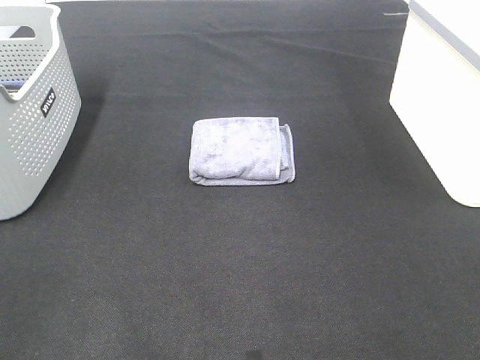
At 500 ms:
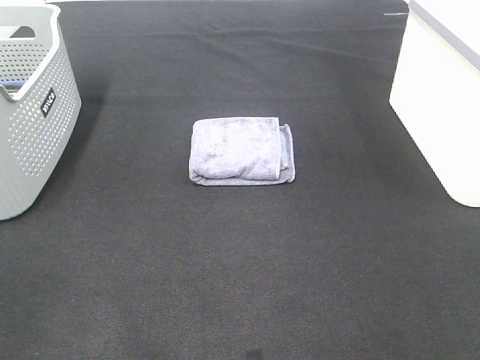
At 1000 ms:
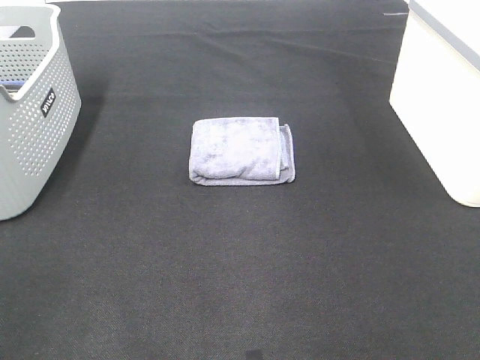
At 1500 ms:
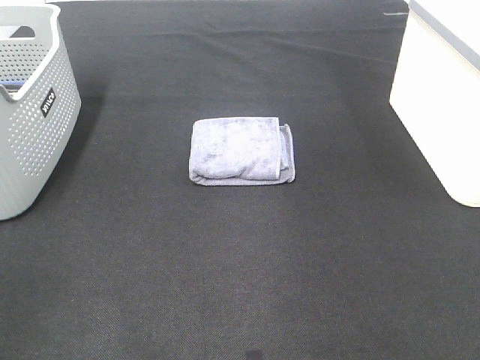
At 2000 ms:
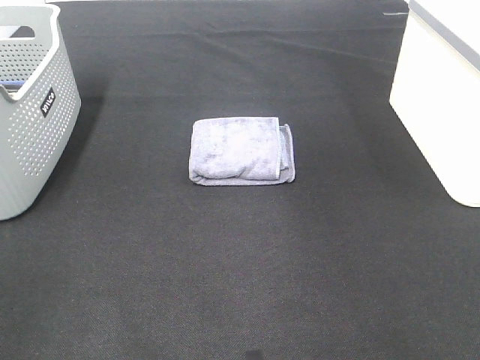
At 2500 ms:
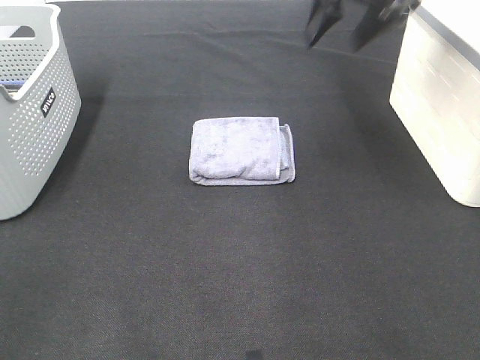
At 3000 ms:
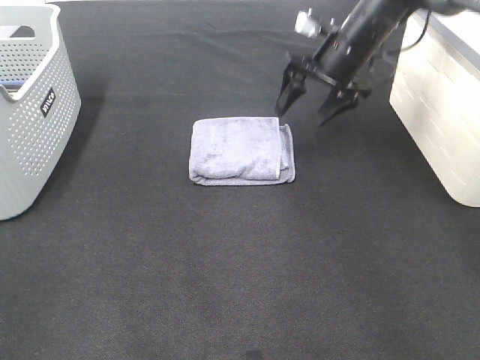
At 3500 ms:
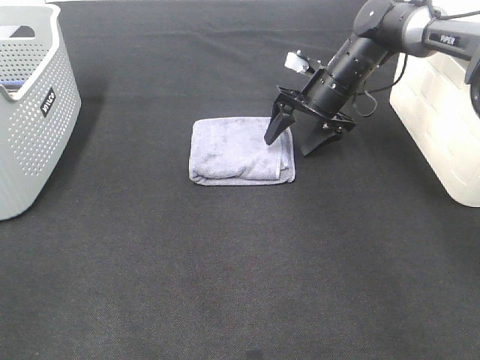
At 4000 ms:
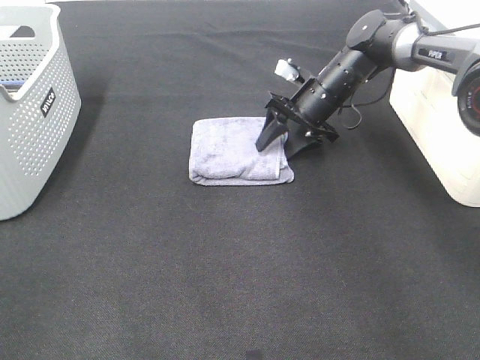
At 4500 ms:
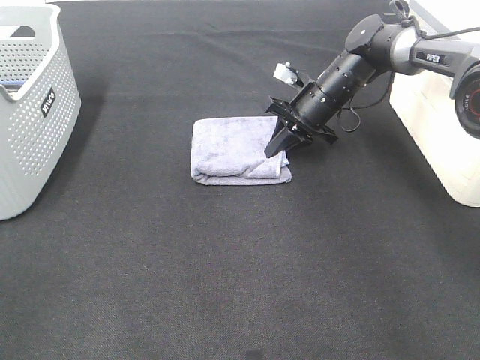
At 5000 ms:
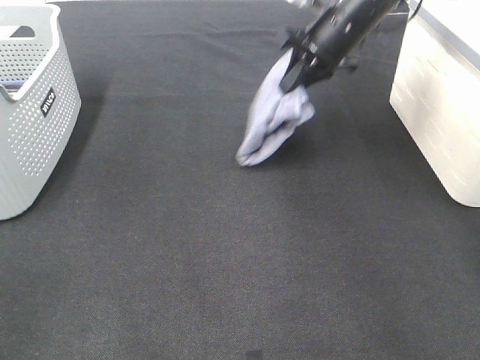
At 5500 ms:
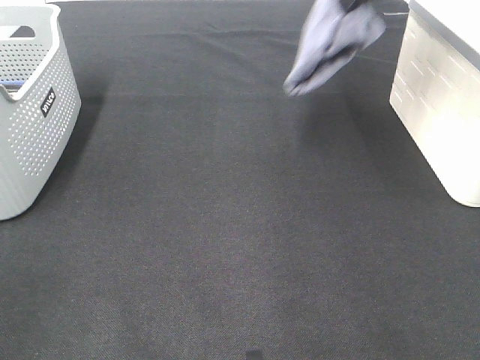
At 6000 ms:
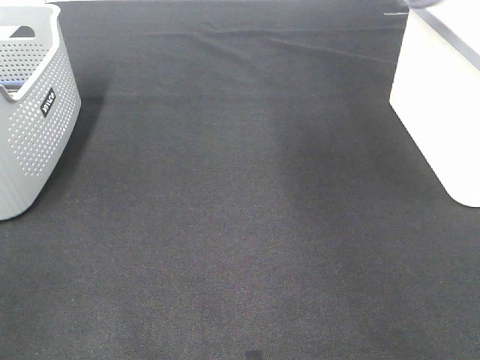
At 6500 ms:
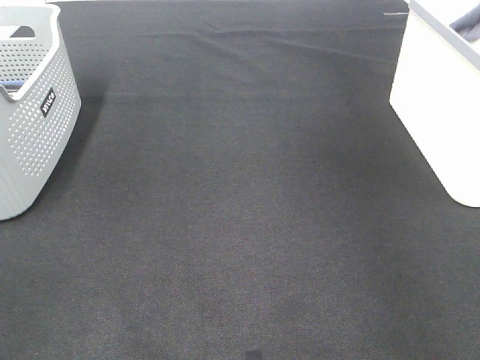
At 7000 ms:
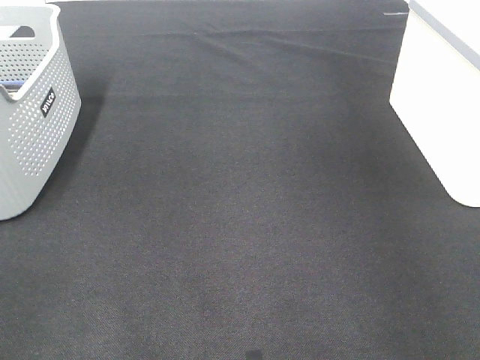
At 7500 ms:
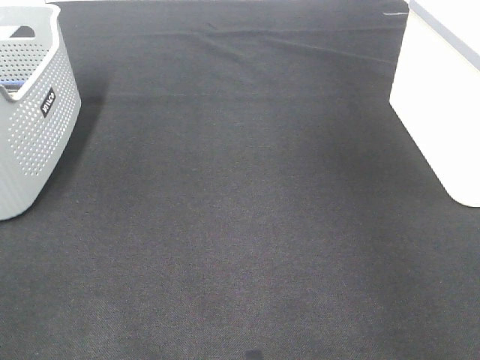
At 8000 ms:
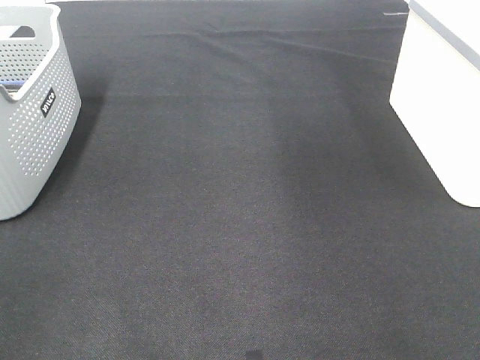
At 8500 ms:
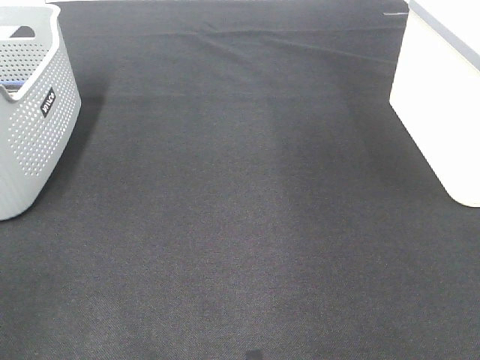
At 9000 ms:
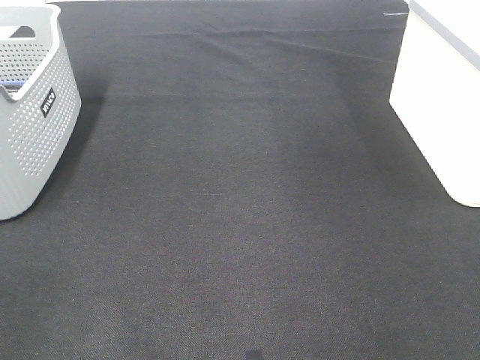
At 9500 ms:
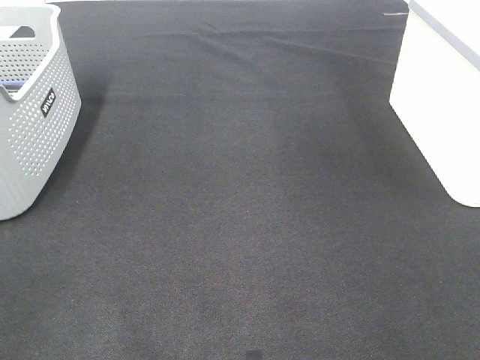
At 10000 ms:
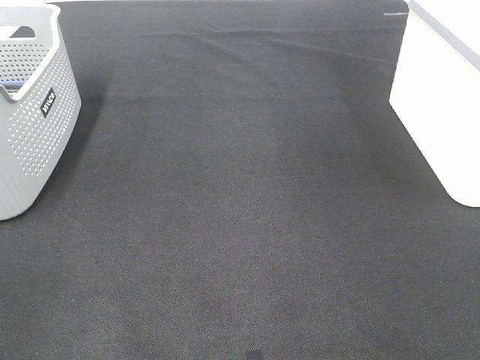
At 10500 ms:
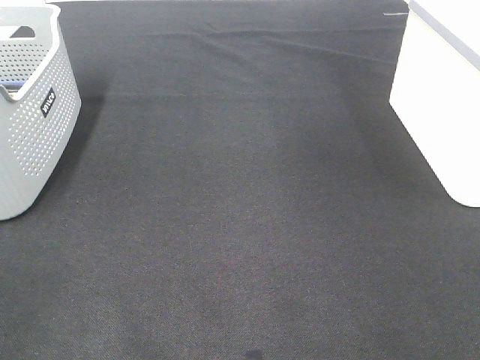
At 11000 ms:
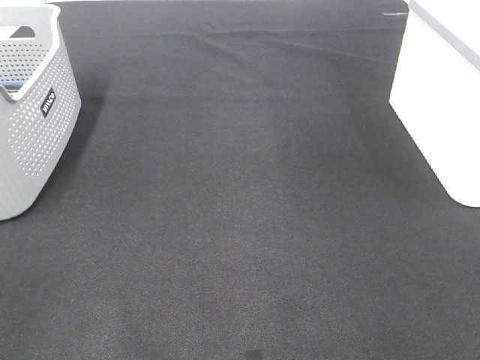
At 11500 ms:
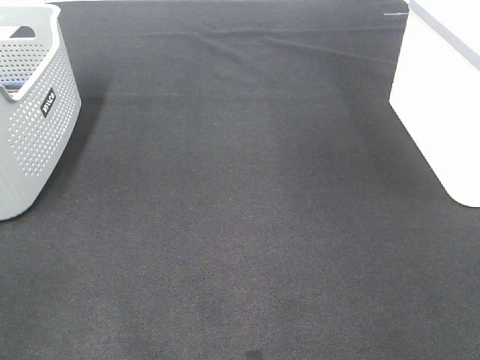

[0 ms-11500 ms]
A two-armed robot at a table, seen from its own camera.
Step, 0 ms to 4000 ms: Right hand: grab the folded grey towel.
Step, 4500 ms to 7000 ms: Right hand: place the grey towel in right basket.
2000 ms to 4000 ms: The right gripper goes some 30 cm downward and to the left.
4000 ms to 6000 ms: The right gripper goes roughly 40 cm upward and to the right, and closes.

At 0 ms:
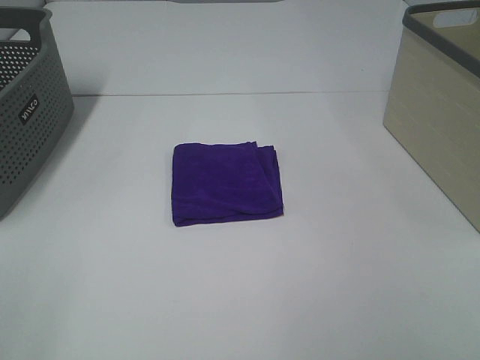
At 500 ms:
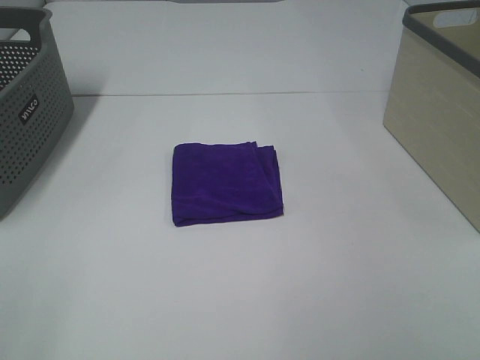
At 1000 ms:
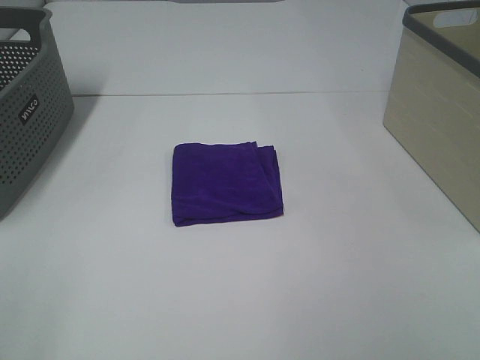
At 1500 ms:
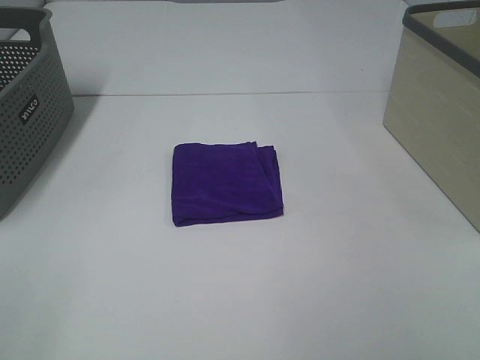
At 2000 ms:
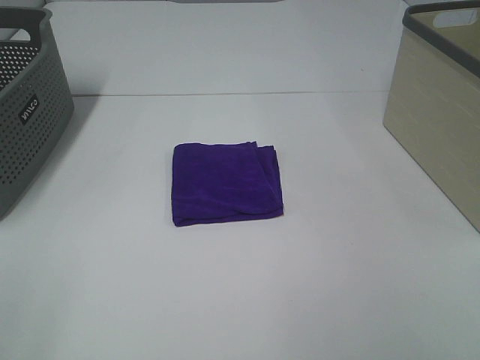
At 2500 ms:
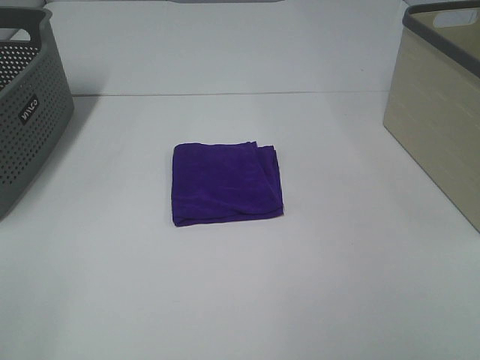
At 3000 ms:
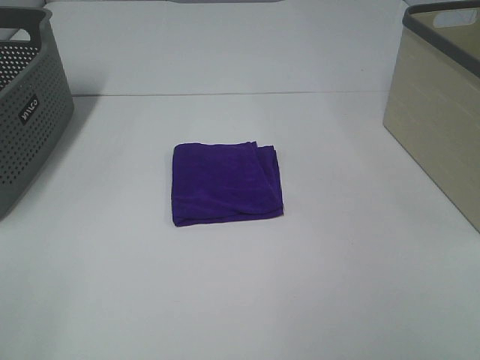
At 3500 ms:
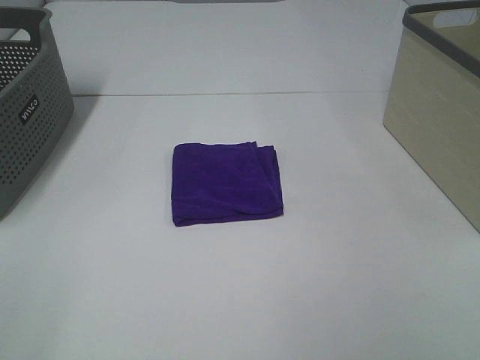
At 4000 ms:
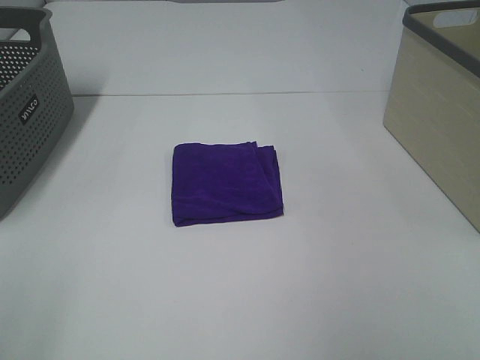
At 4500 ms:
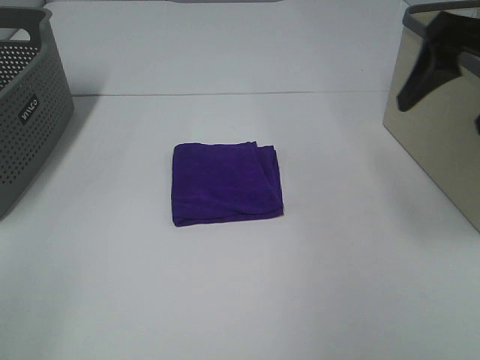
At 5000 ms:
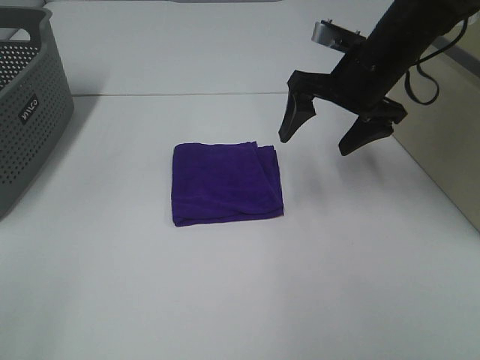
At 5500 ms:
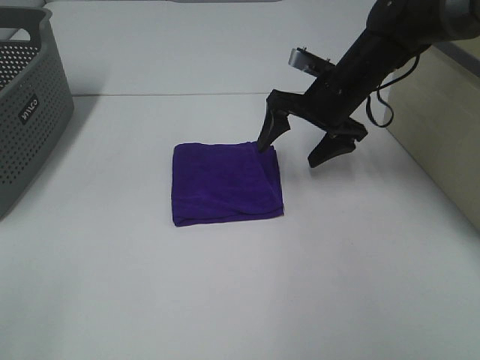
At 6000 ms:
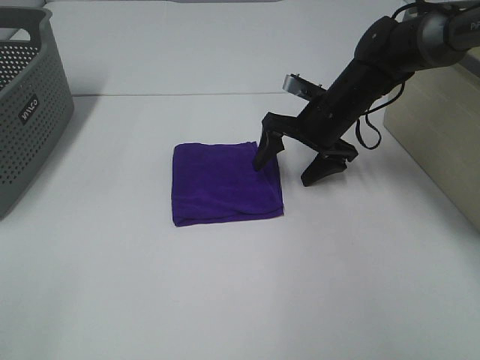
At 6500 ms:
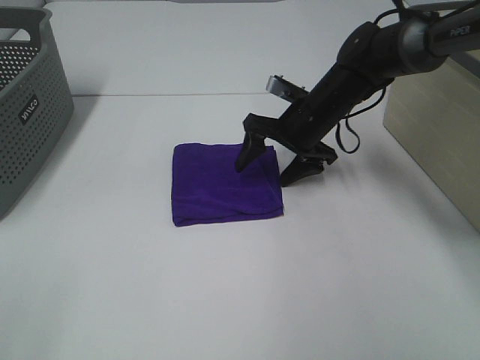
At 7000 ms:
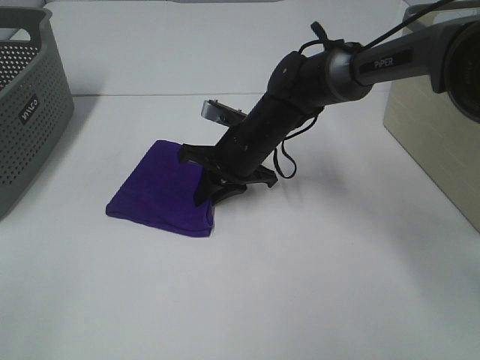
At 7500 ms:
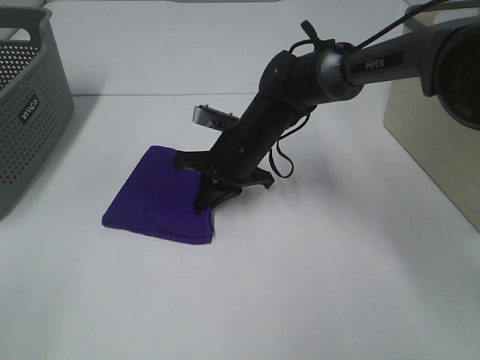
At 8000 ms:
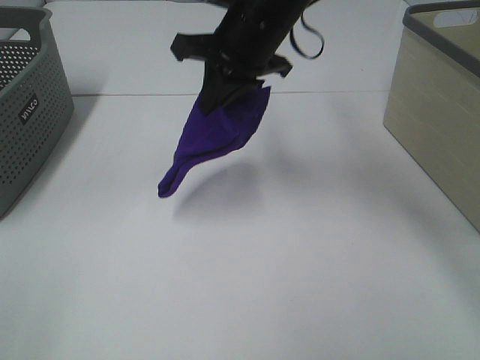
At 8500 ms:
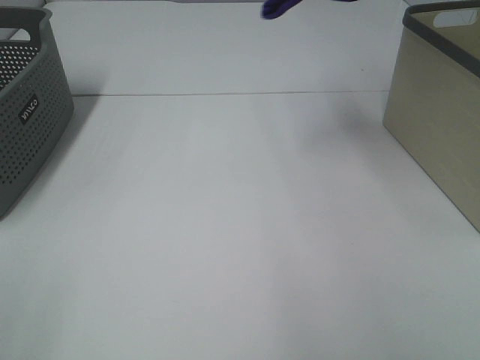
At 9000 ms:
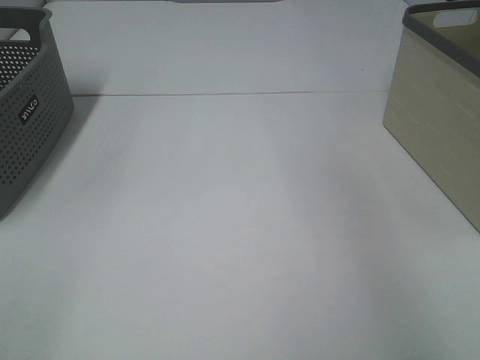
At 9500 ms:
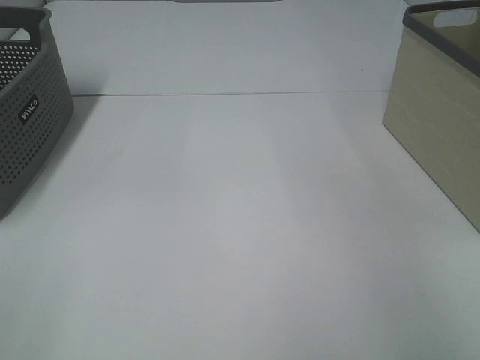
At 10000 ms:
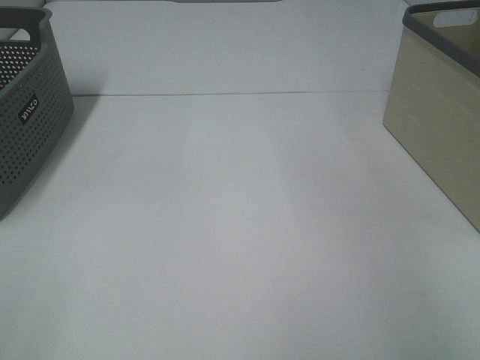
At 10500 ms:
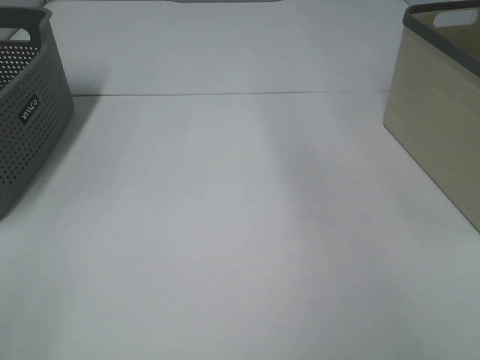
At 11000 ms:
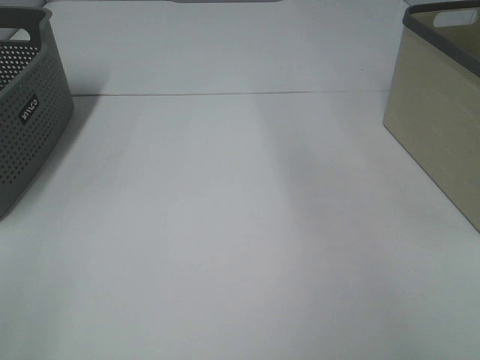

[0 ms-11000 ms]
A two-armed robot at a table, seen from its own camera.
Step, 0 ms to 7000 ms: Right hand: grab the folded purple towel.
Step, 7500 ms to 9500 ms: Right hand: place the purple towel in right basket.
0 ms to 2000 ms: Both grippers stay about where they are.
3500 ms to 5500 ms: The right gripper goes some 40 cm forward.
5500 ms to 7500 ms: The right gripper goes some 15 cm to the left and downward, and closes.
7500 ms to 9000 ms: The right gripper travels to the right and upward by roughly 50 cm.

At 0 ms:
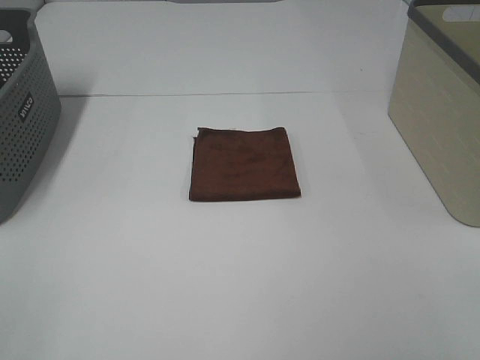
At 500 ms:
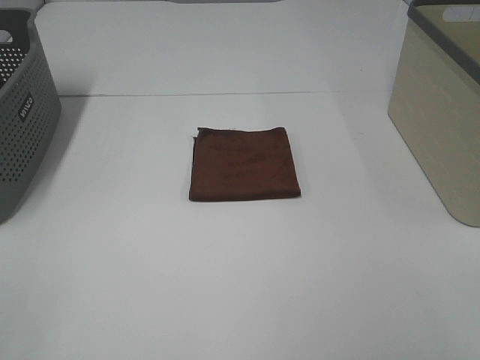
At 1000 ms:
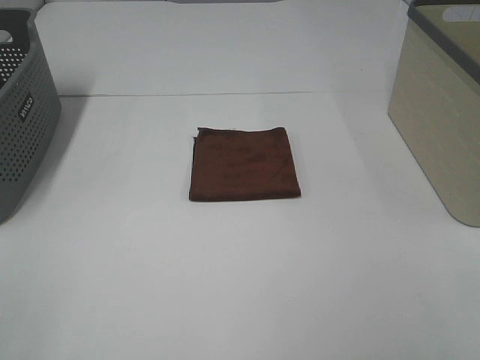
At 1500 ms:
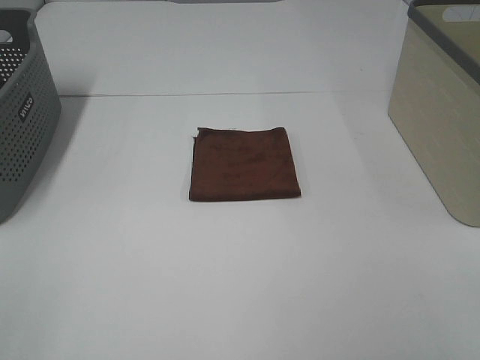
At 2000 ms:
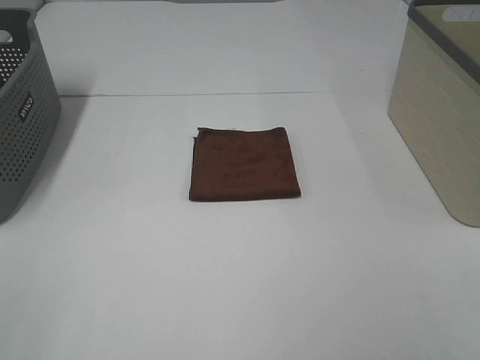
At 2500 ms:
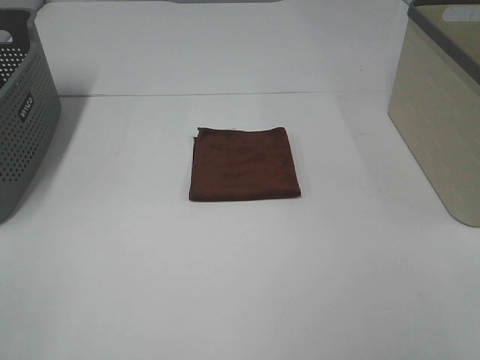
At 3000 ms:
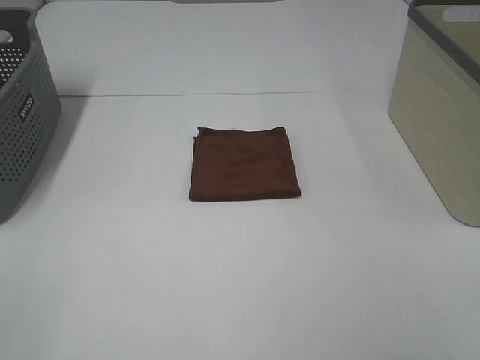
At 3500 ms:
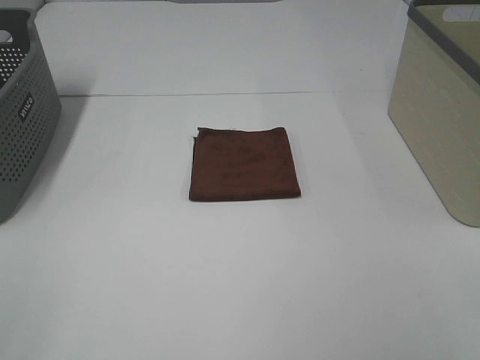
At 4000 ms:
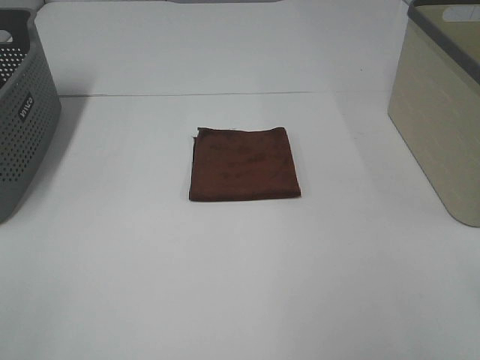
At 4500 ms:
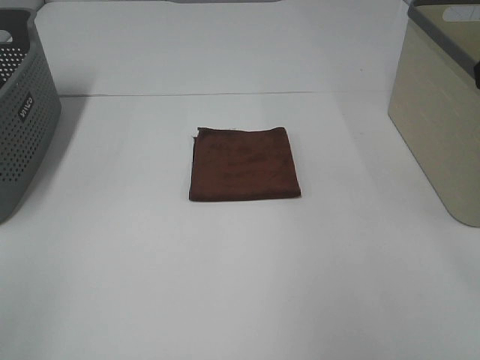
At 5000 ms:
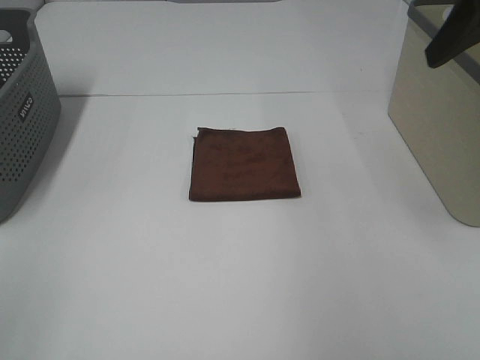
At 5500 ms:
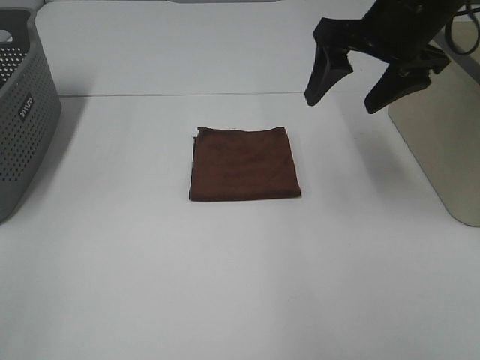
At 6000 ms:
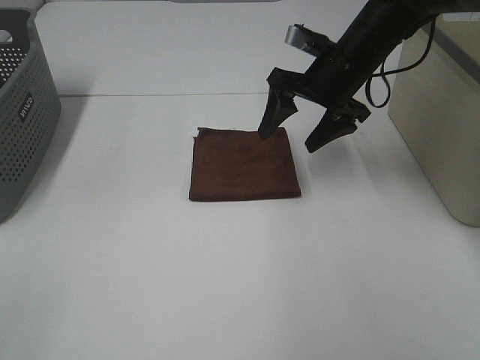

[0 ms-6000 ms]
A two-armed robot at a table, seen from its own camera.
0 ms to 2000 ms: The two grippers keep their place.
4000 ms to 6000 ms: The right gripper travels forward, downward and to the left by some 40 cm.
